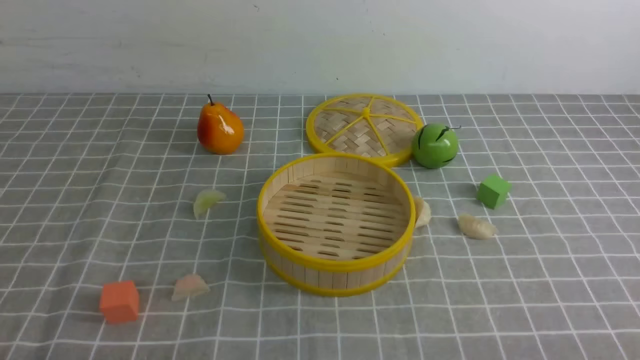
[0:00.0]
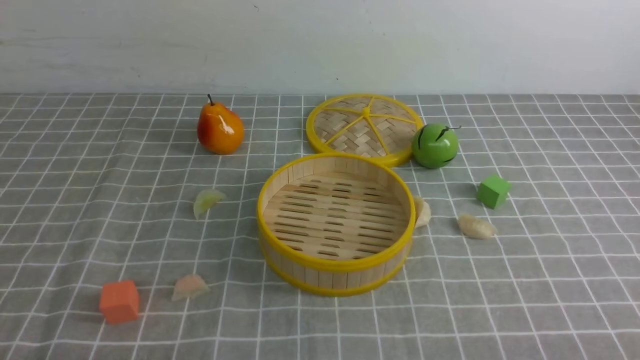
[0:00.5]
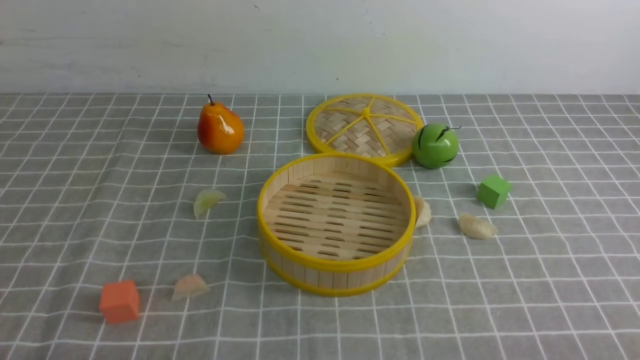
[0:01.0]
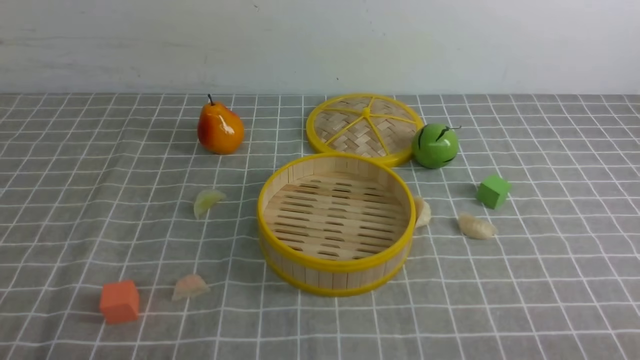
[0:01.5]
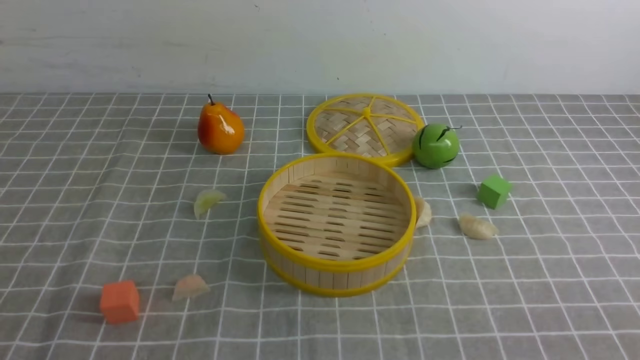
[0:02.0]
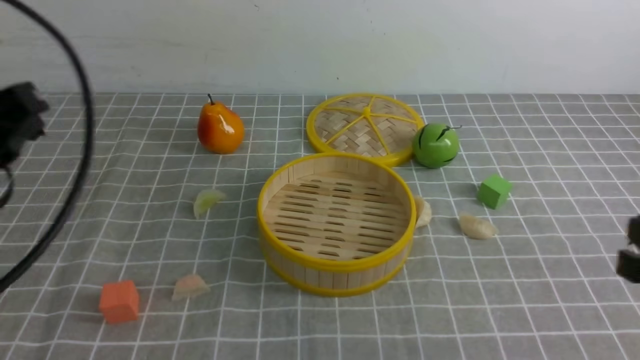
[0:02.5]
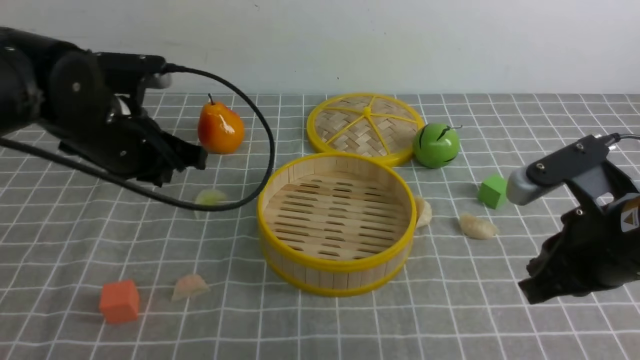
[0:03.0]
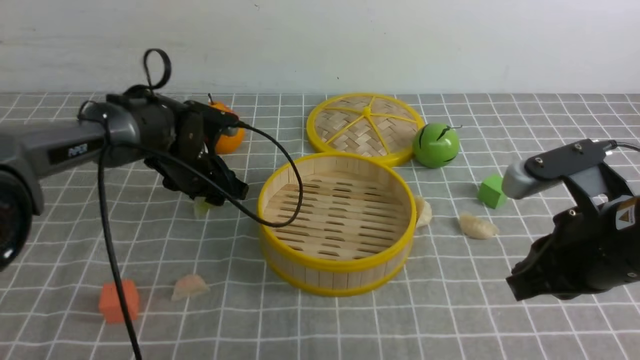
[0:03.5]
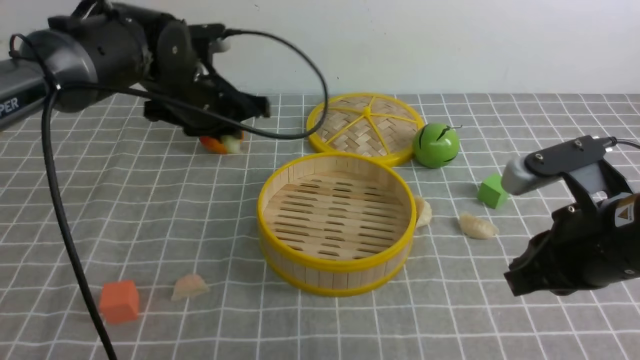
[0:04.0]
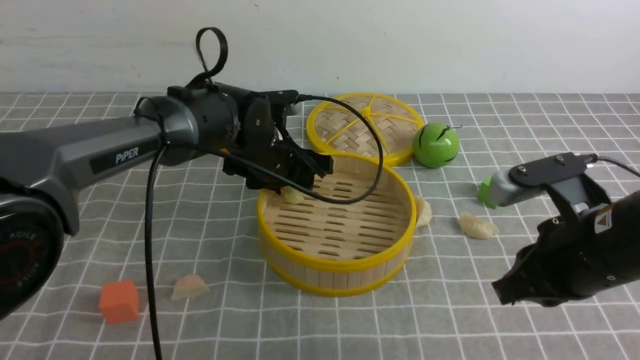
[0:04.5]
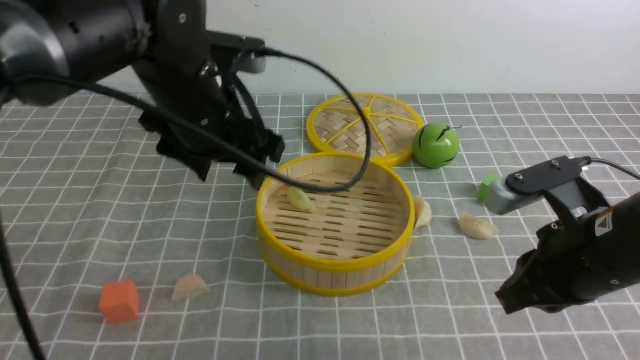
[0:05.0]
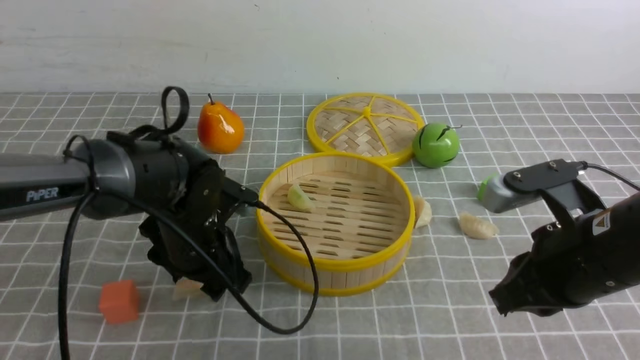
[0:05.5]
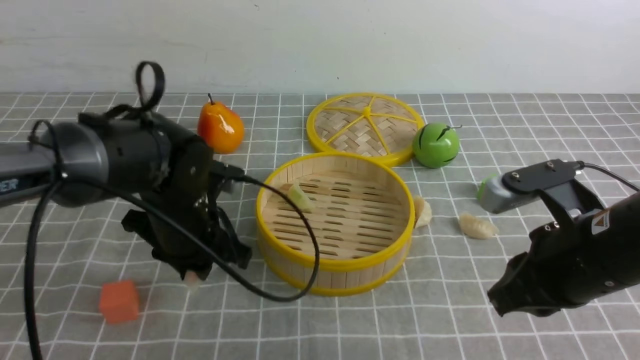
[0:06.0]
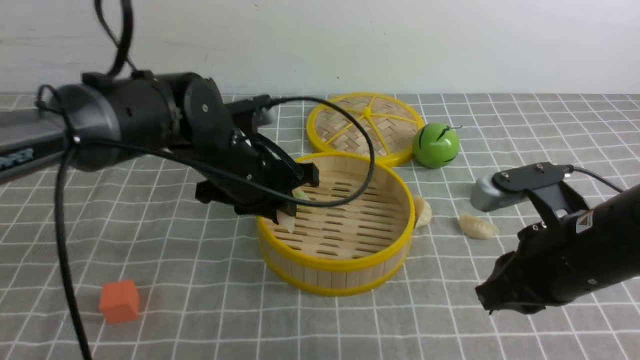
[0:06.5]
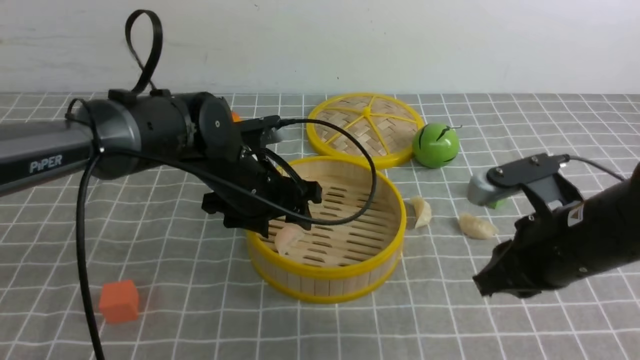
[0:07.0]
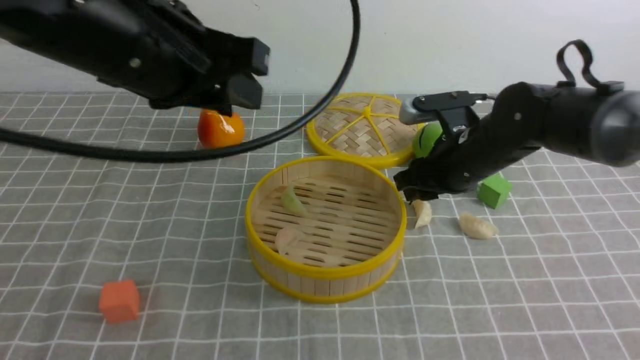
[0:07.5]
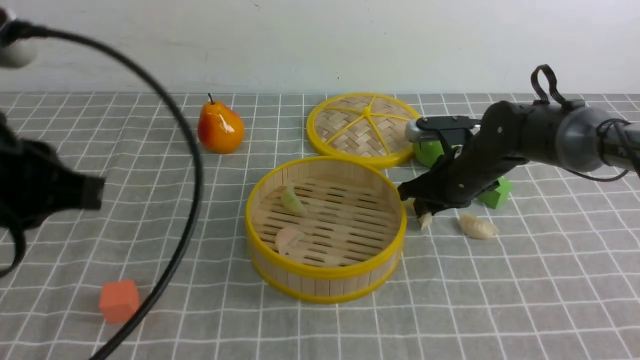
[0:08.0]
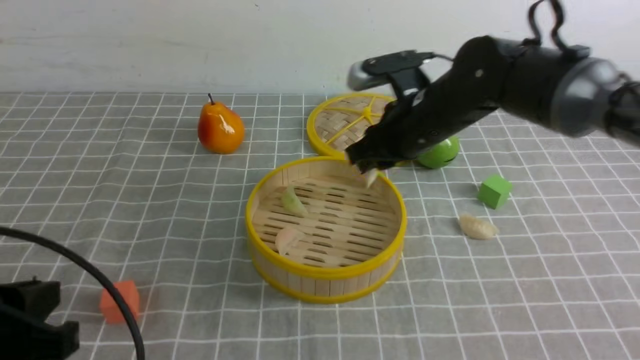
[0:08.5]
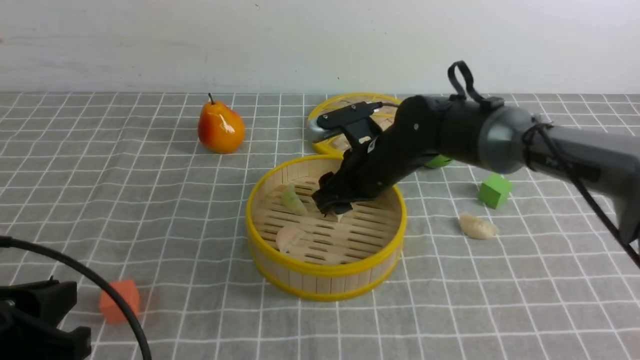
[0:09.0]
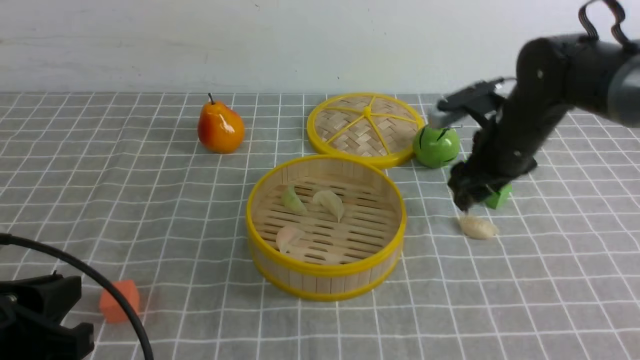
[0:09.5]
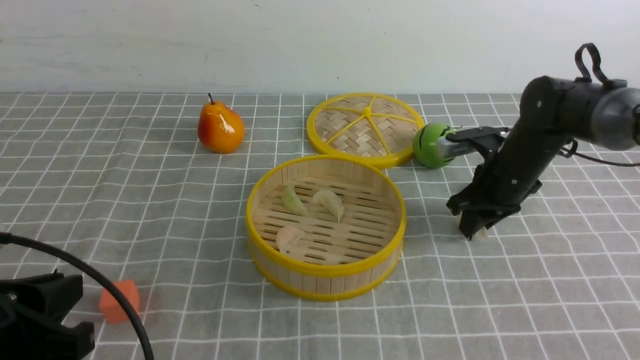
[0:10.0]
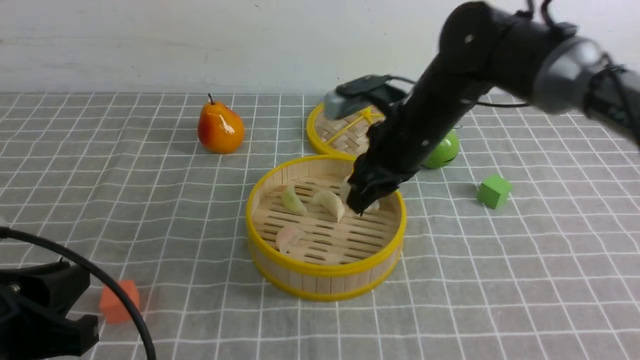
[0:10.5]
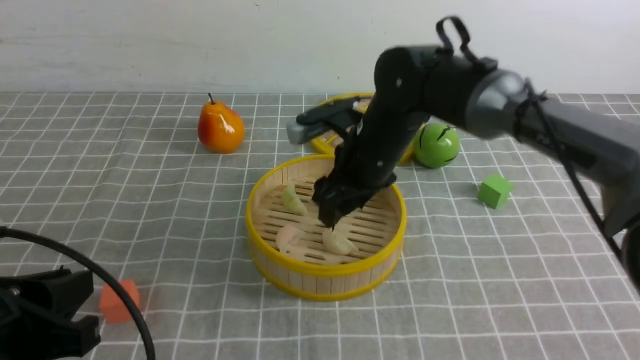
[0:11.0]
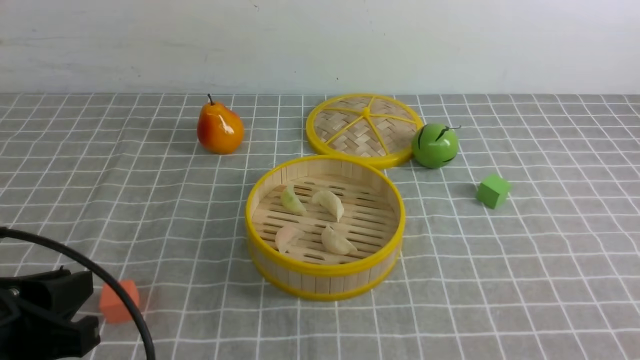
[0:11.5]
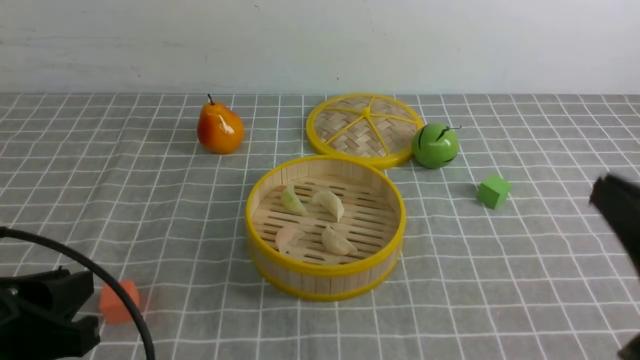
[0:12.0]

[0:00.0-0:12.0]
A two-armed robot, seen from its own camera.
Task of the whole recording: put the dumplings into the steamer on the table with the grey tablecloth.
Step, 0:00.0 to 0:03.5: use the left arm to grab a dumpling.
Step, 0:04.0 to 0:04.5: use the left arm to put the dumpling into the steamer.
Step, 0:05.0 to 0:05.5: use the left arm to grab a dumpling.
Step, 0:06.0 to 0:07.0: use the left arm to put the dumpling into the steamer.
Step, 0:07.5 to 0:08.0: use the right arm to grab a dumpling.
Step, 0:08.5 to 0:09.0: use the right arm to put the dumpling into the steamer.
Step, 0:10.5 to 0:11.0: use the right arm to put the dumpling into the steamer.
0:02.0 to 0:04.0: The left gripper moves forward, about 40 cm, while the right gripper goes roughly 20 cm forward and to the left.
0:04.0 to 0:06.0: The left gripper is displaced backward by approximately 10 cm, and opens, then closes again.
0:06.0 to 0:08.0: The left gripper goes about 25 cm backward, upward and to the left, and opens and closes again; the right gripper goes approximately 20 cm forward.
0:08.0 to 0:10.0: The left gripper goes roughly 10 cm downward. The right gripper goes to the left and returns, approximately 10 cm each way, and opens and closes again.
0:10.0 to 0:12.0: The right gripper shifts approximately 35 cm backward, and closes up.

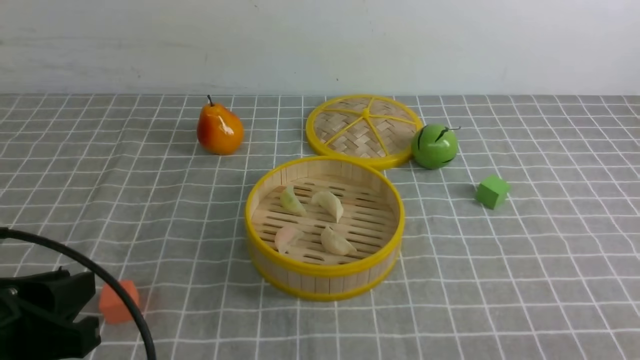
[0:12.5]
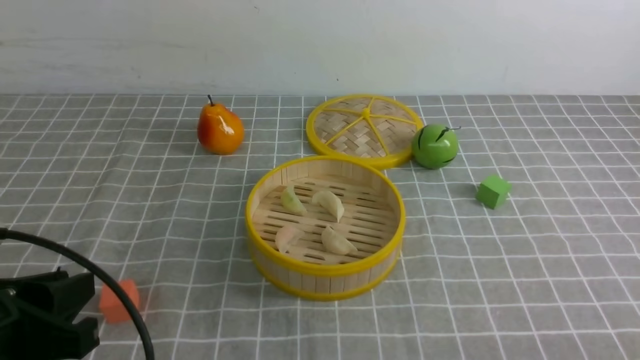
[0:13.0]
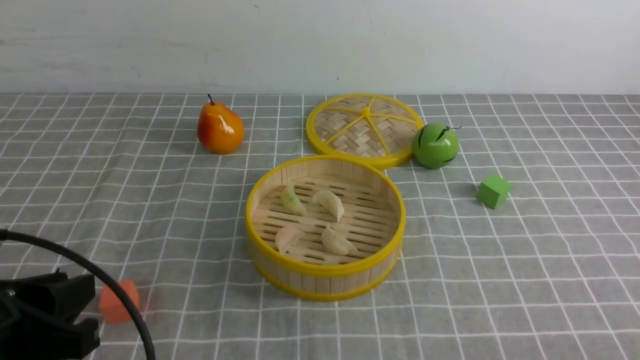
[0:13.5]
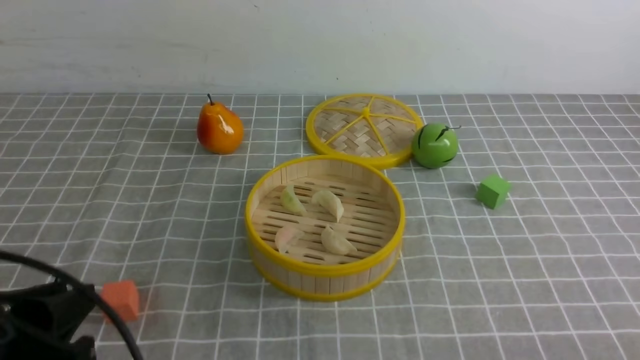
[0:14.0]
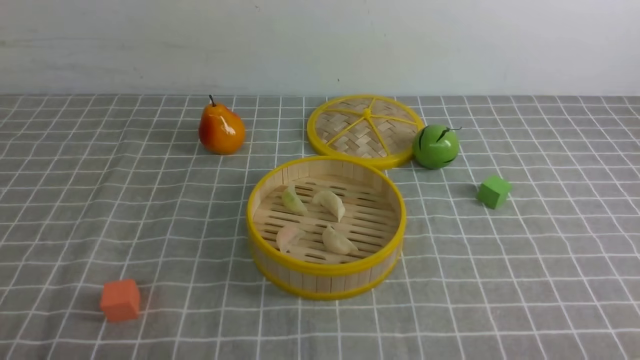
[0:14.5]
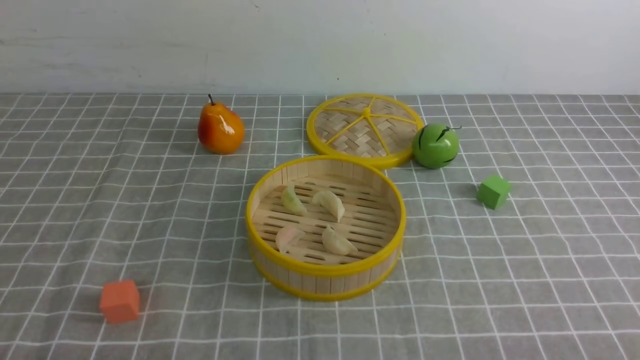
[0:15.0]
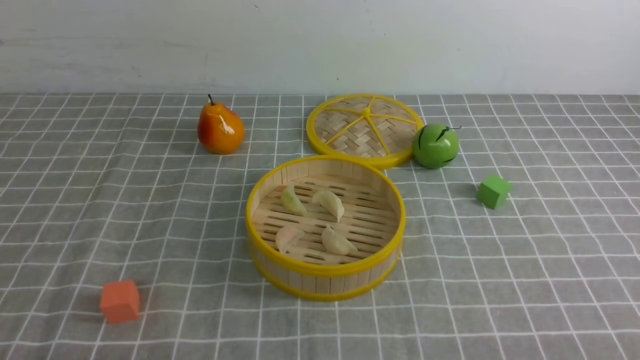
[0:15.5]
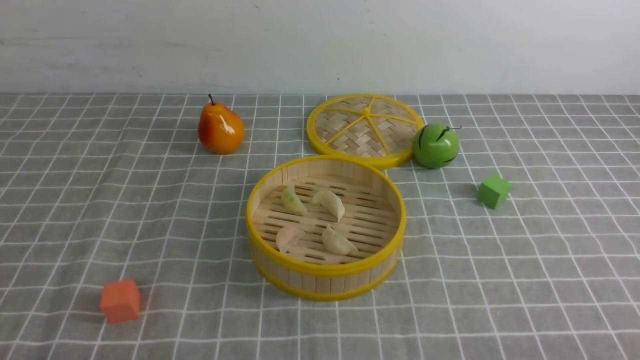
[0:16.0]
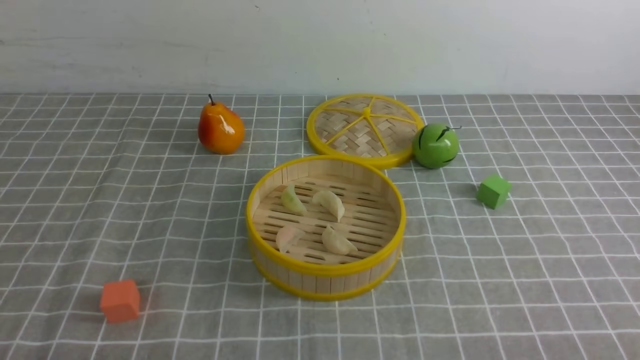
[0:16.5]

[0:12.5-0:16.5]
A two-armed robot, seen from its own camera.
Task of the whole recording: put the dumplings into the steamer on the table with the grey tablecloth.
0:12.5 to 0:14.5: The left gripper travels backward and downward by some 10 cm.

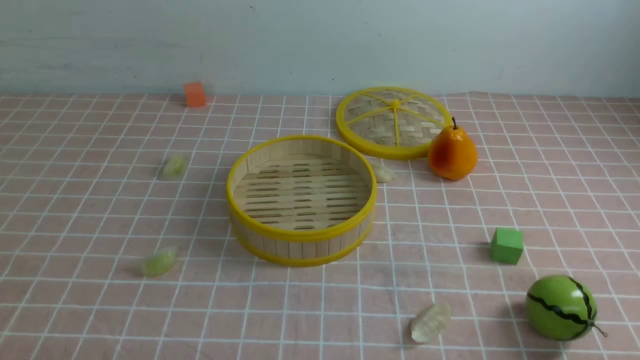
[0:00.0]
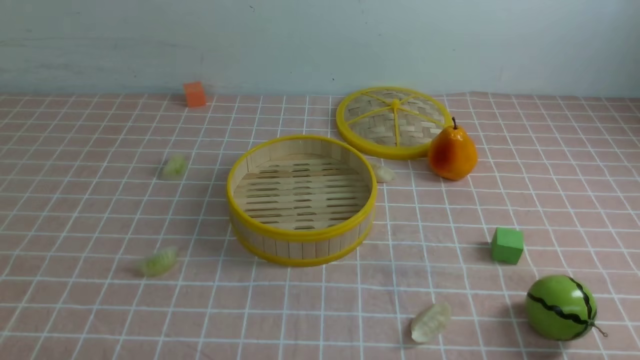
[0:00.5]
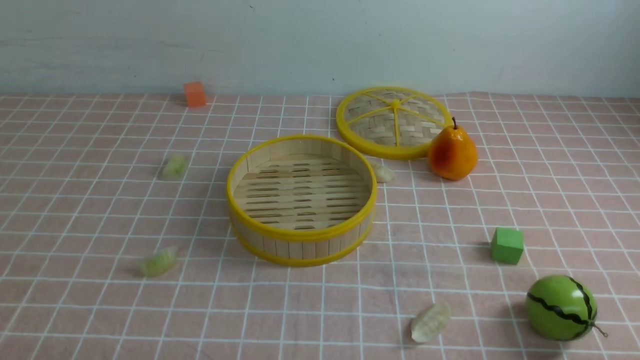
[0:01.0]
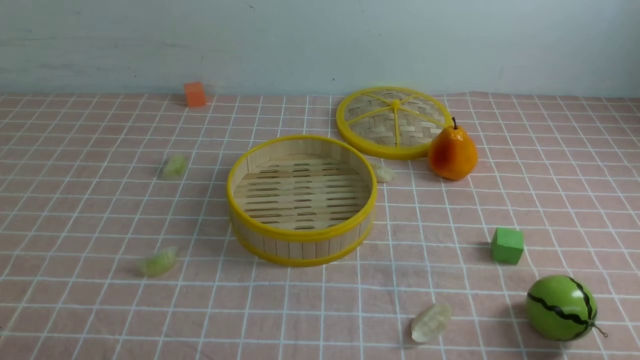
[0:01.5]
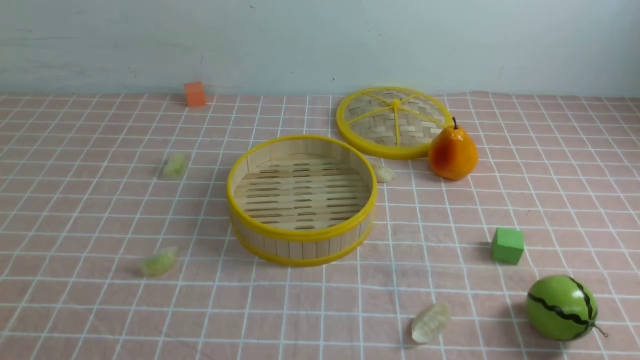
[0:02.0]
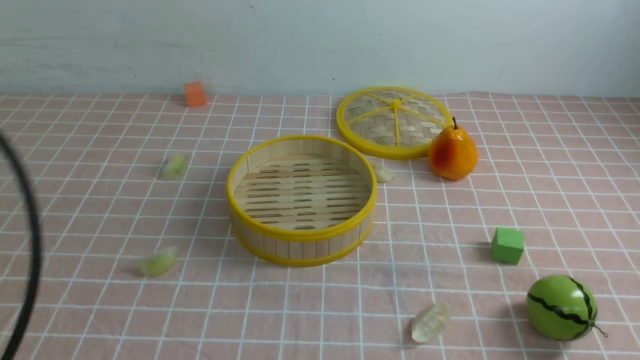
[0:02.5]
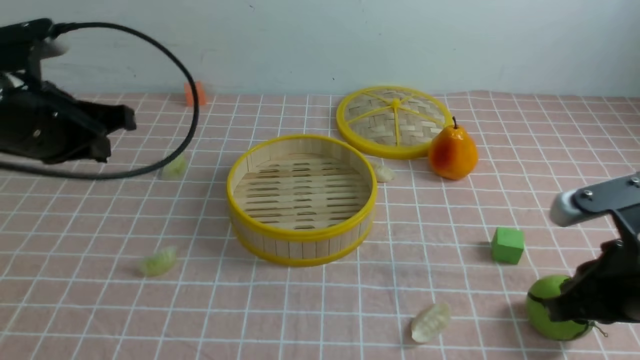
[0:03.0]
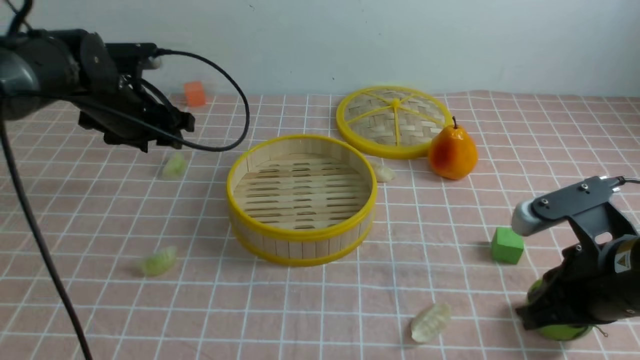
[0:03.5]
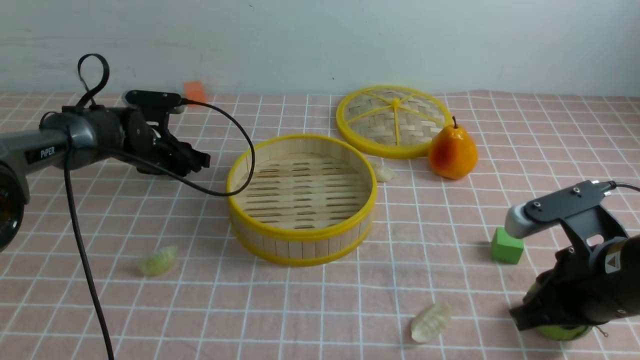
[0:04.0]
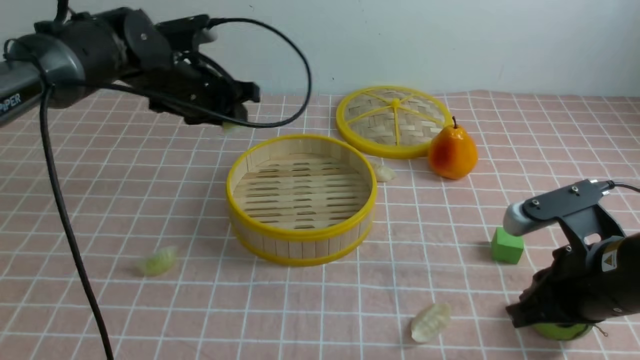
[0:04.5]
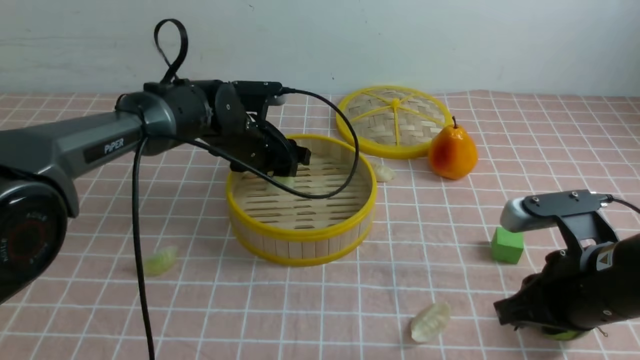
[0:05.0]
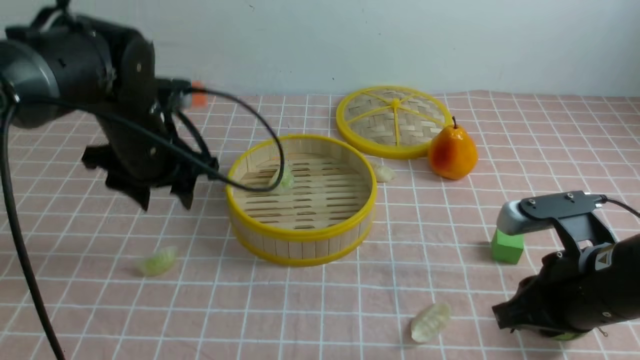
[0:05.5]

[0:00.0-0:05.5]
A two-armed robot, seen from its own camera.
Task of the whole recording: put the dumplings into the steamer on the table with the pink tablecloth.
Step, 0:00.0 to 0:04.0: use the left arm to grab a dumpling.
Step, 0:04.5 to 0:05.0: use the left arm to put the dumpling into the steamer.
0:02.0 to 0:03.5: The right gripper travels forward by roughly 20 cm, while the left gripper shifts approximately 40 cm forward, and opens its fingers.
0:03.5 to 0:05.5: The left gripper heads backward and to the right, covering some 10 cm, and closes and opens again.
